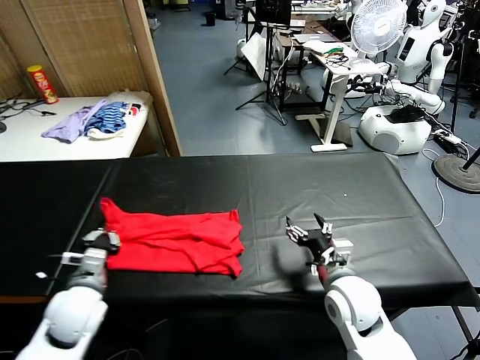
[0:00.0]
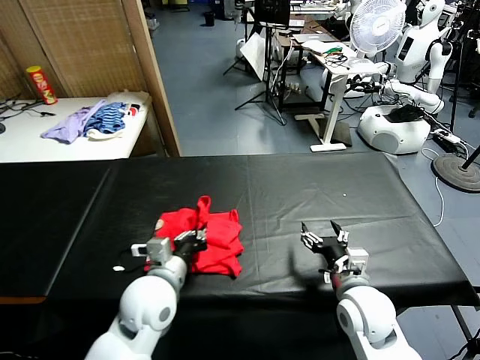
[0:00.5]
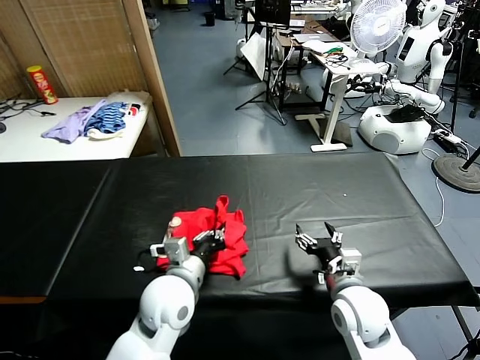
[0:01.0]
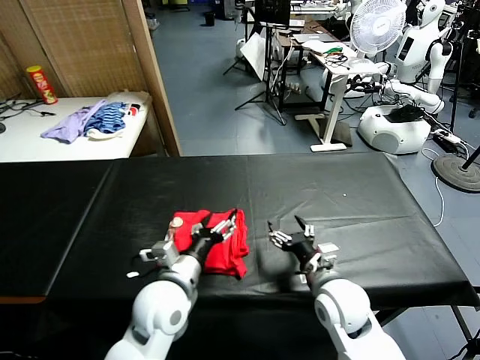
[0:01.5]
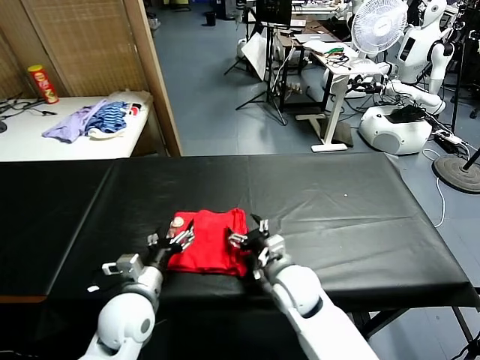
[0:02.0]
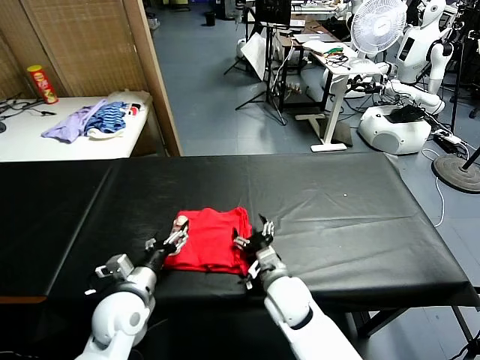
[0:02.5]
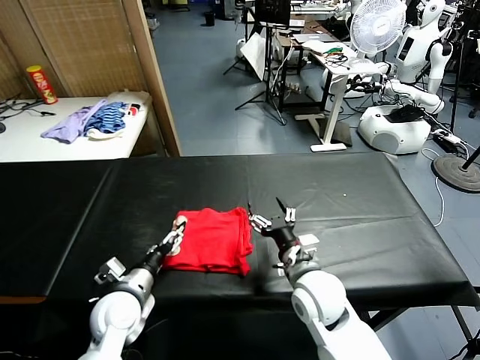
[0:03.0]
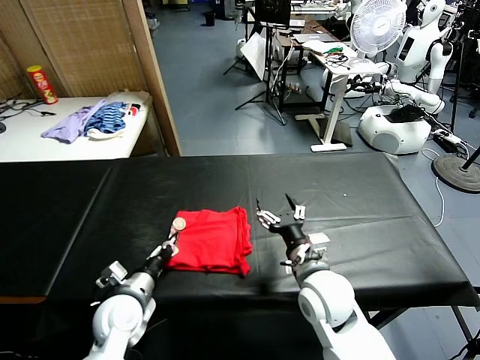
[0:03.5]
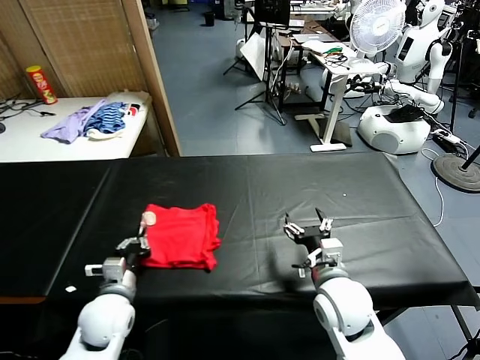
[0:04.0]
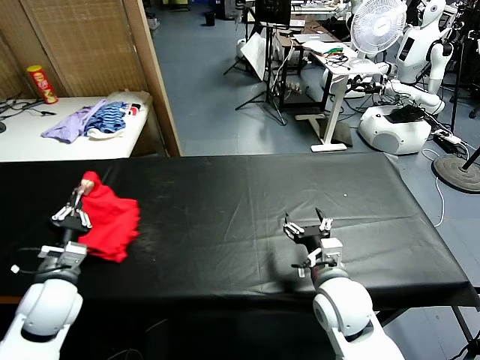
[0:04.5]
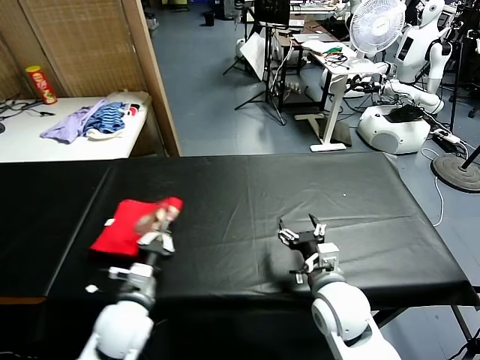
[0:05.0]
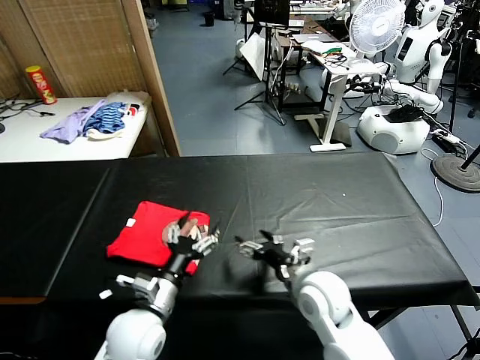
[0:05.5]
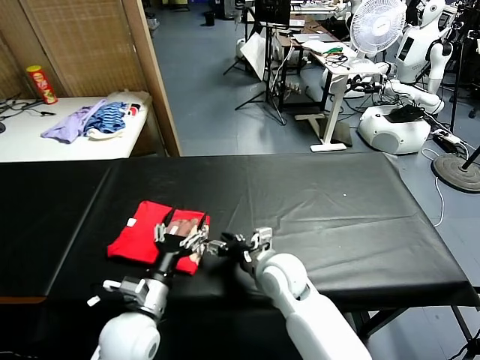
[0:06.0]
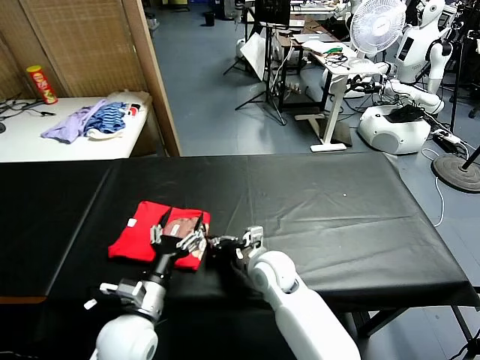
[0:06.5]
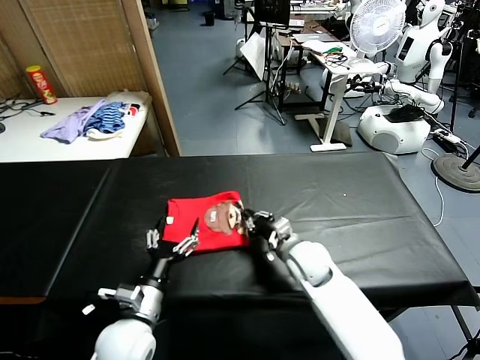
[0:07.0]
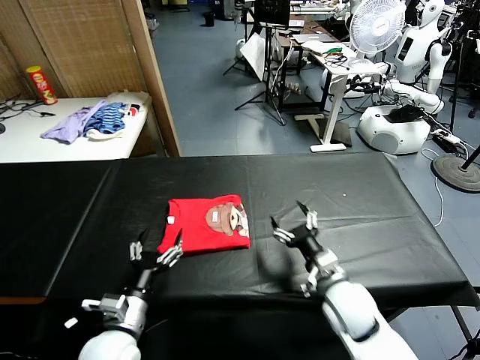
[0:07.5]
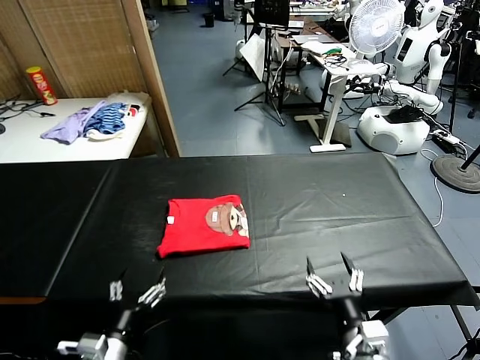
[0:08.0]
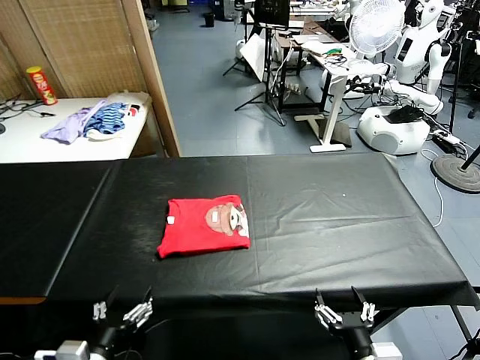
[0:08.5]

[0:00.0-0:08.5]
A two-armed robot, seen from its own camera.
Task of the whole recording: fold and organize the clothes.
Step, 0:00.0 to 0:01.0: use the left gripper to drag the left edge of the fabric to the left and folds it over the right edge.
Step, 0:01.5 to 0:05.0: Flip the folded clothes over with left gripper.
Step, 0:05.5 to 0:07.0: Drag the clothes to the center of the table.
0:00.0 to 0:02.0: The right gripper is displaced to the left by about 10 cm, while the left gripper heads to the right, covering roughly 10 cm, and opens up.
0:02.0 to 0:04.0: The left gripper goes roughly 5 cm to the left, and closes its fingers, while the right gripper moves to the right and upward, some 10 cm.
0:04.0 to 0:06.5: The right gripper heads to the left, forward and downward, covering about 15 cm, and closes. Meanwhile the left gripper moves to the right, some 5 cm, and opens its fingers.
0:06.5 to 0:08.5: The right gripper moves backward and to the right, some 30 cm, and opens. Meanwhile the left gripper is displaced backward and to the left by some 15 cm.

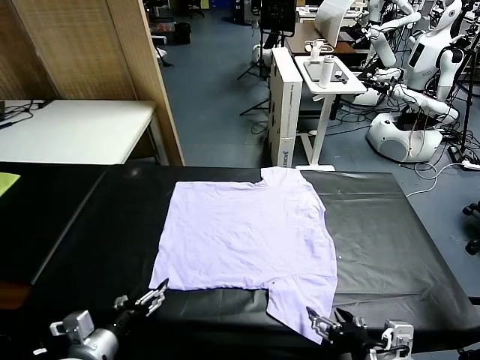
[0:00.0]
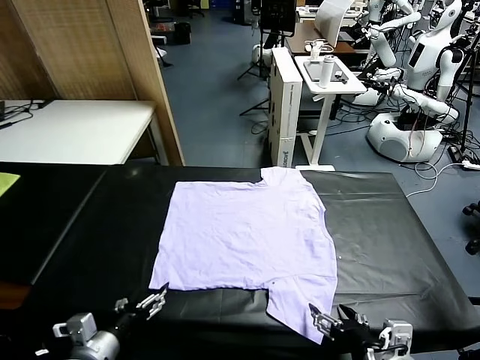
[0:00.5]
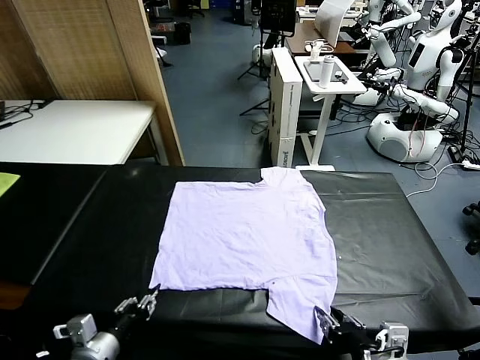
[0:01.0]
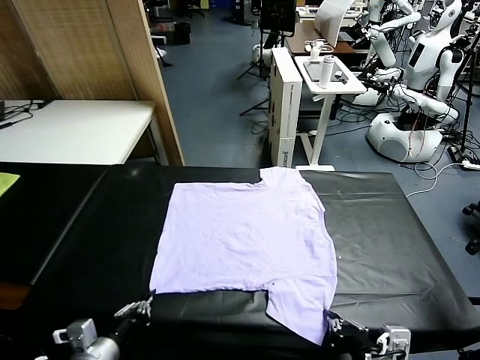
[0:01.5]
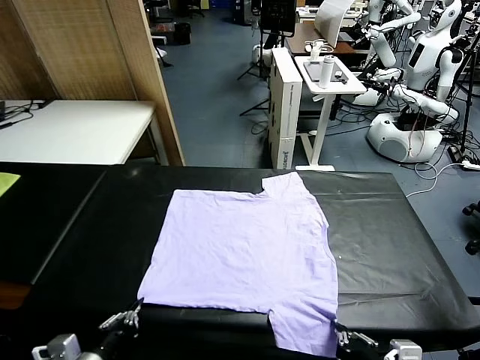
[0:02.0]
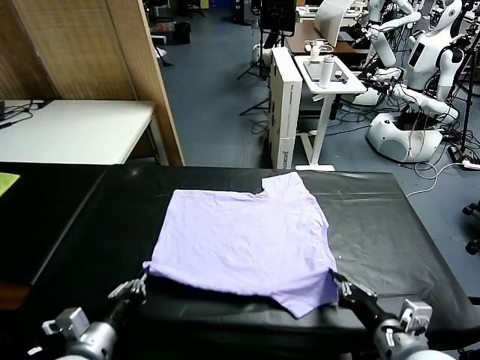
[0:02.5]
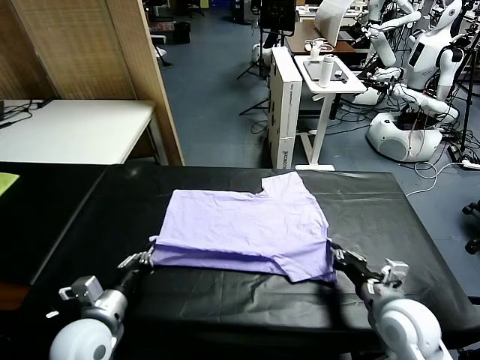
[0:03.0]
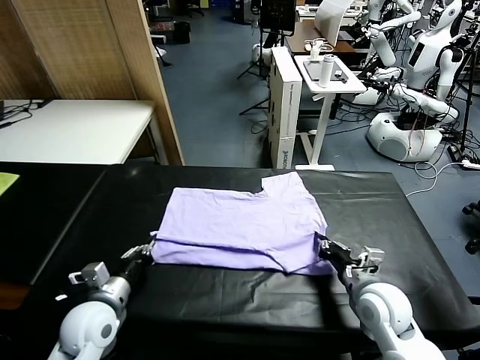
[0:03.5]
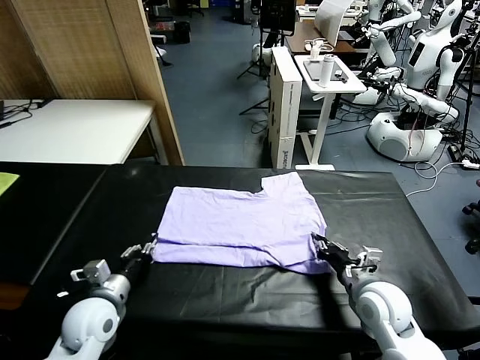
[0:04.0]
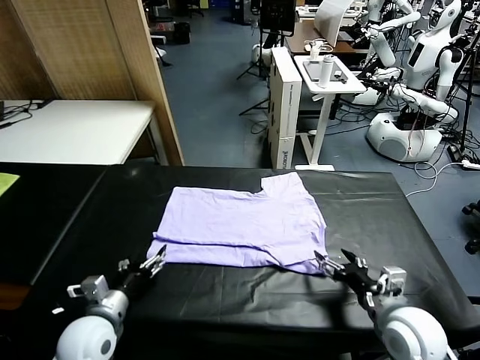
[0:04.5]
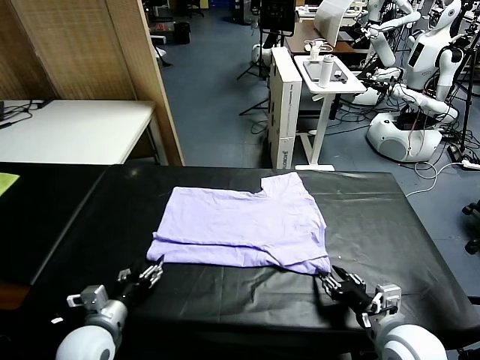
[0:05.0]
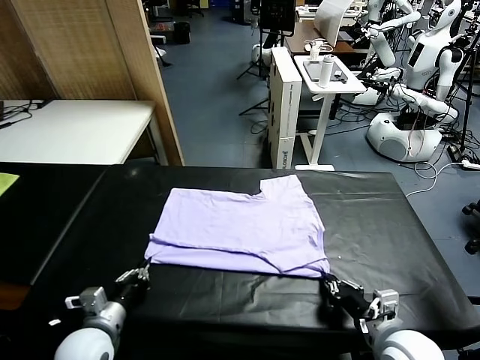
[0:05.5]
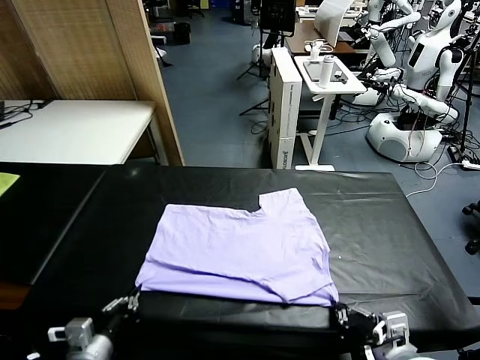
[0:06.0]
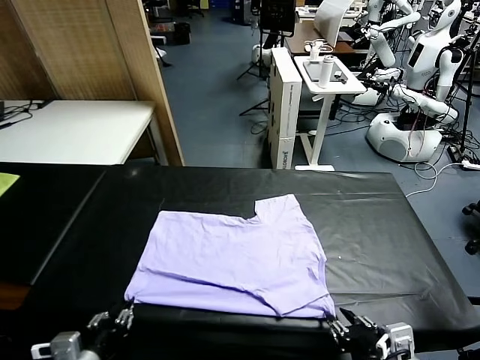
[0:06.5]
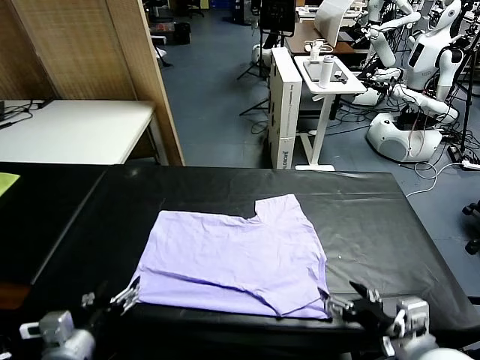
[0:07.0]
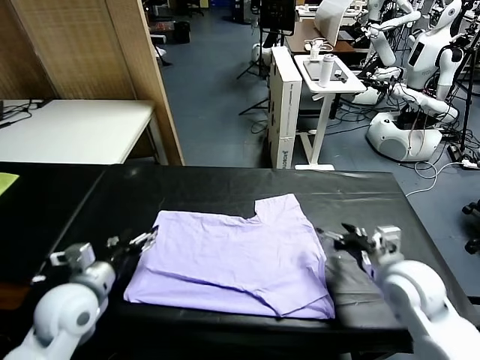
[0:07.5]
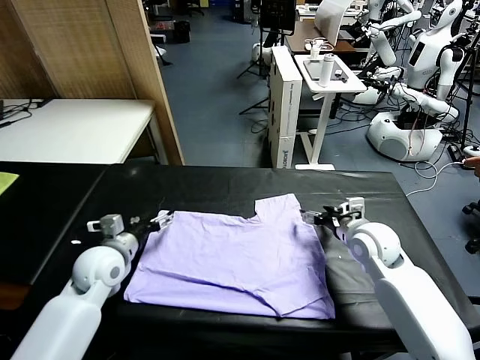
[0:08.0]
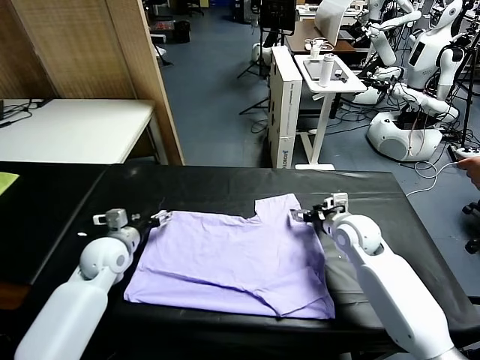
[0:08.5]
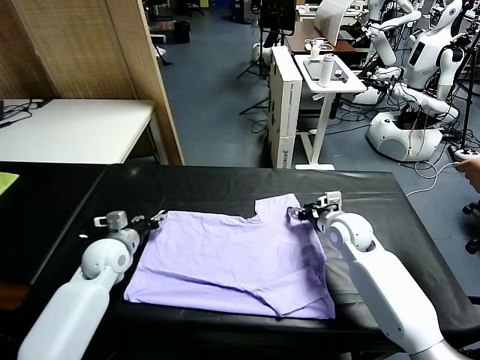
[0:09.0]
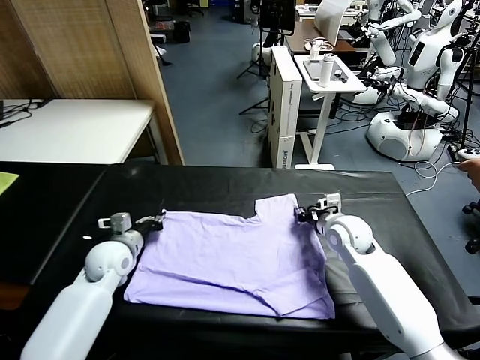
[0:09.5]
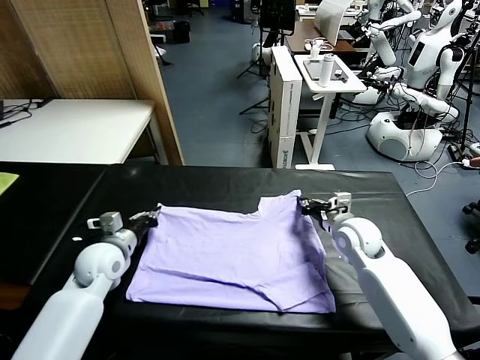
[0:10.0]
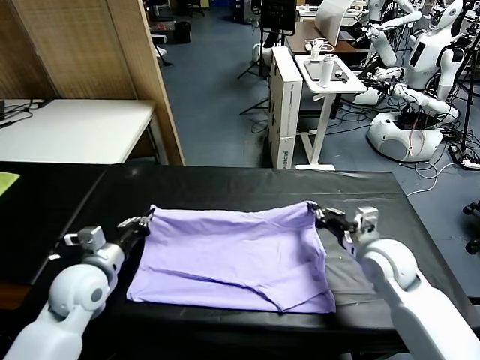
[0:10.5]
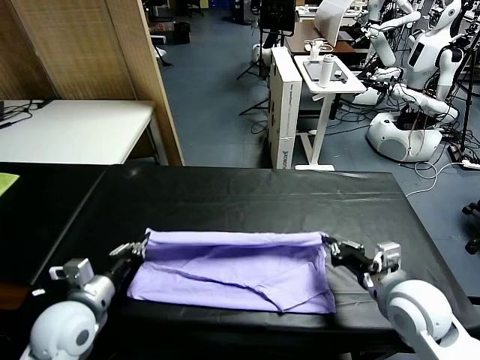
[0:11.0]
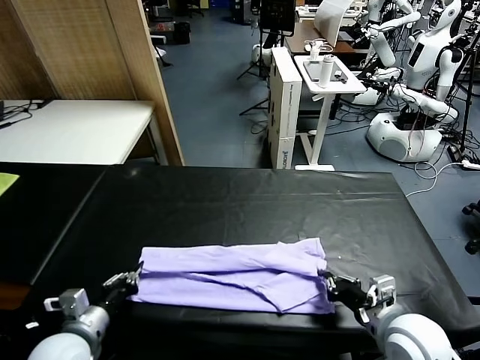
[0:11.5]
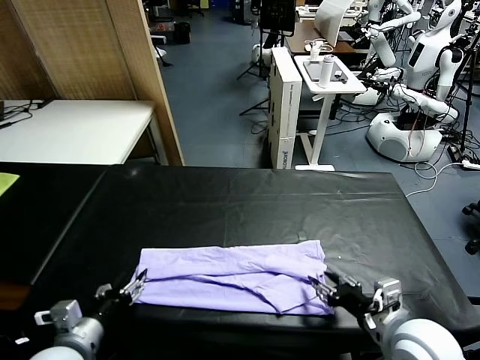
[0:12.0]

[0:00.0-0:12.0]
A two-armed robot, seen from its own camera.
Task of the whole recording: fold and organize the clothes.
Step, 0:00.0 to 0:01.5: use both grippers simultaneously to clamp the lower edge of the clothing fabric.
Step, 0:02.0 to 0:04.0: use both grippers to drag the lower edge of the fabric forward and fold it over the upper edge.
Step, 0:04.5 to 0:06.5: Drag the clothes downward with both gripper.
Step, 0:07.0 to 0:09.5: use both grippers simultaneously to clamp the upper edge of the clothing fabric.
0:02.0 to 0:04.0: Both grippers move forward, approximately 15 cm. The right gripper opens its fingers; the left gripper opens.
0:04.0 to 0:06.0: The grippers both shift backward by approximately 10 cm. The right gripper closes up, while the left gripper closes its fingers.
0:06.0 to 0:08.0: The two grippers go roughly 25 cm forward. The left gripper opens. The right gripper opens.
0:08.0 to 0:10.0: The right gripper closes its fingers; the left gripper closes its fingers.
0:10.0 to 0:12.0: Both grippers move backward, roughly 20 cm. The left gripper opens up; the right gripper opens up.

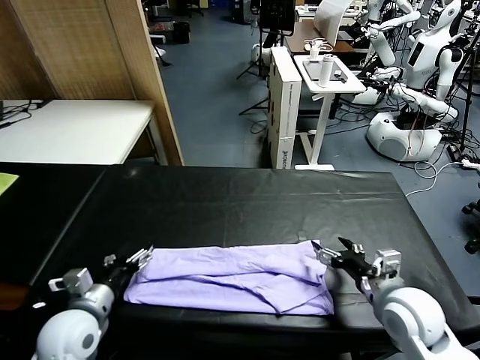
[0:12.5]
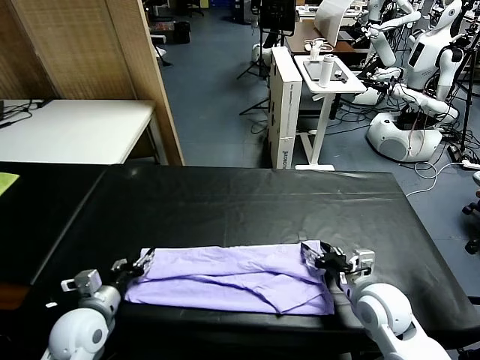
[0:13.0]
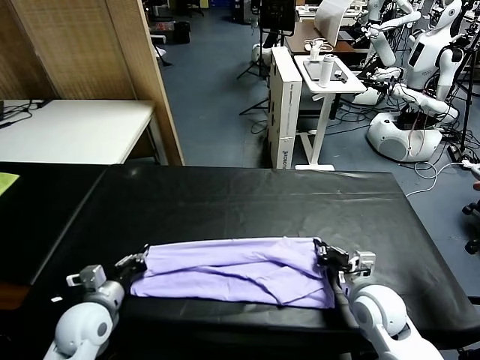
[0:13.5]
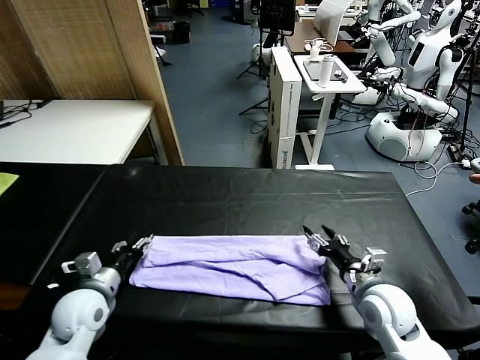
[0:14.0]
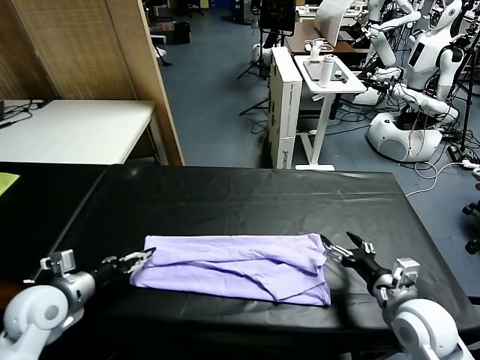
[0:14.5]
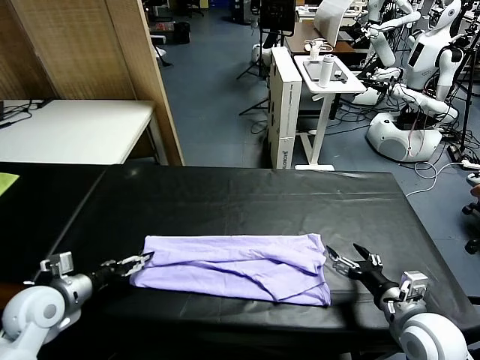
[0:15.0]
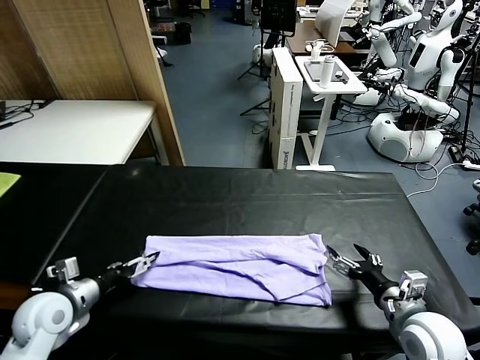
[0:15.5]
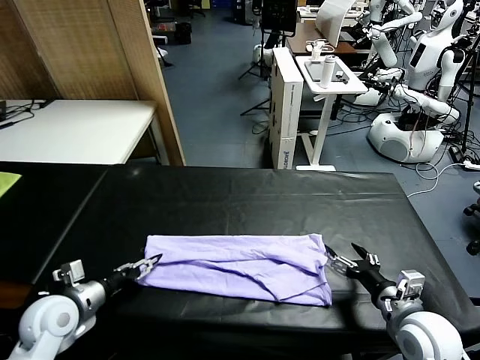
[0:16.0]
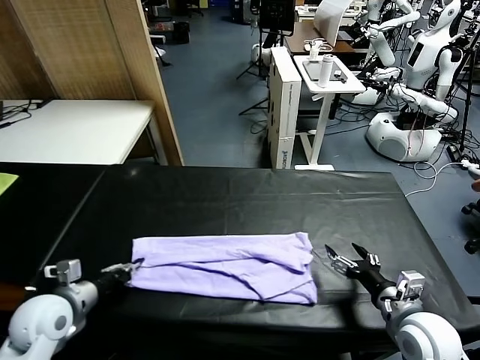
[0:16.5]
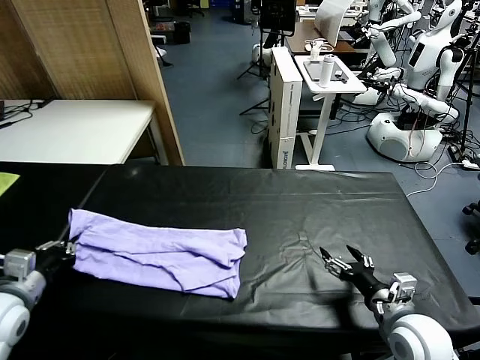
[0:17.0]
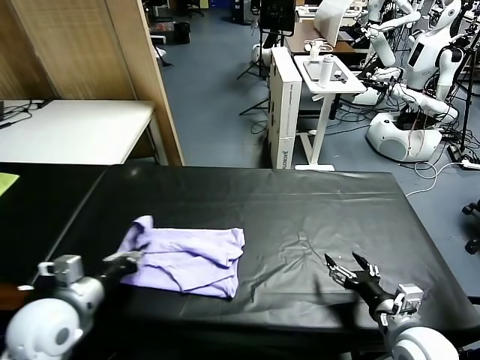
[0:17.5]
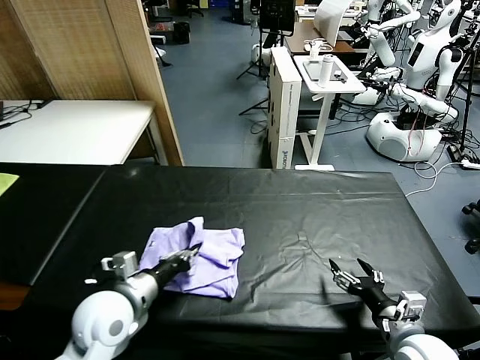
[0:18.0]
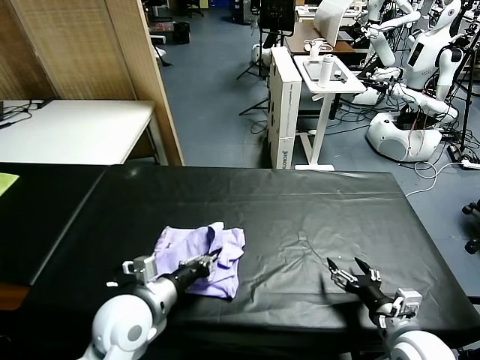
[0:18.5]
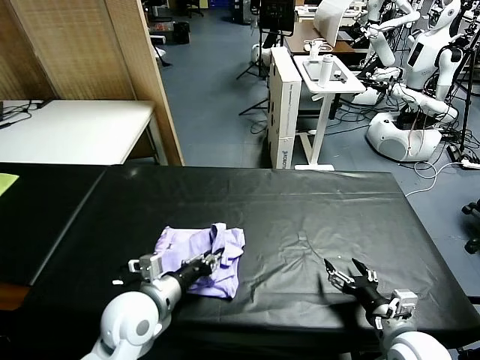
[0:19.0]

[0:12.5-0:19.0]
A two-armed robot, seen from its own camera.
Task of the whole recording: fold and organize the clothes.
Step, 0:12.5 to 0:16.0: use the left gripper to clamp the left edge of the fabric.
0:12.5 to 0:14.5: The right gripper changes place by some 5 cm, and closes, then reopens. Meanwhile the left gripper is displaced to the left by roughly 5 cm, and closes, then opens again.
0:14.5 to 0:17.0: The left gripper moves approximately 5 cm, and closes.
0:17.0 to 0:19.0: The left gripper heads to the right, covering approximately 20 cm.
